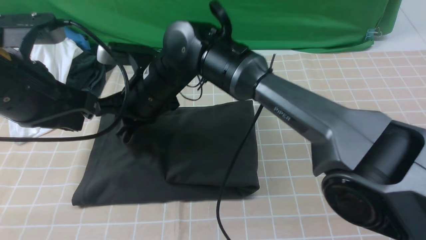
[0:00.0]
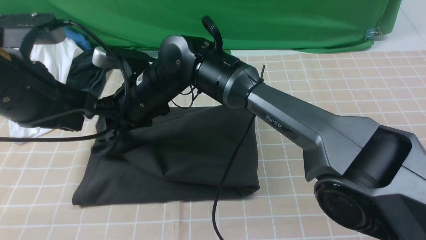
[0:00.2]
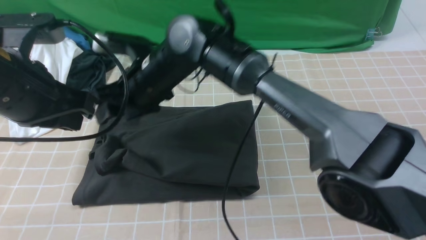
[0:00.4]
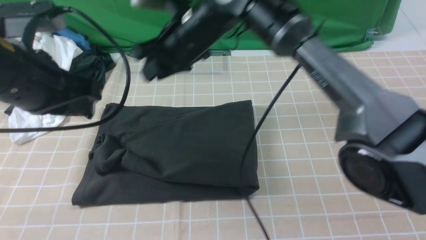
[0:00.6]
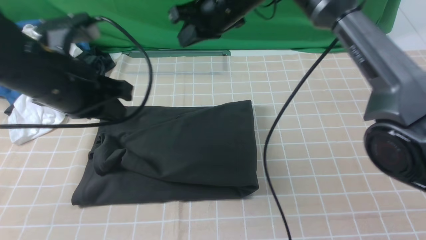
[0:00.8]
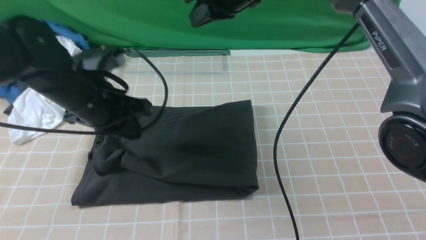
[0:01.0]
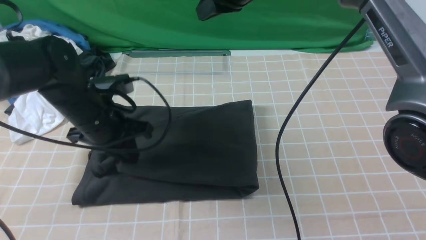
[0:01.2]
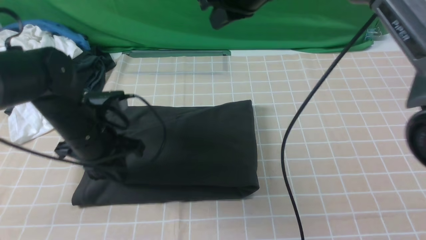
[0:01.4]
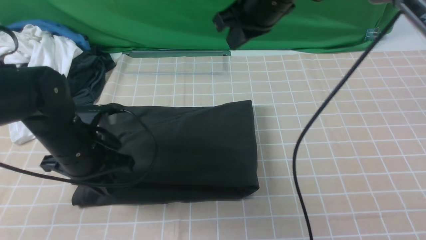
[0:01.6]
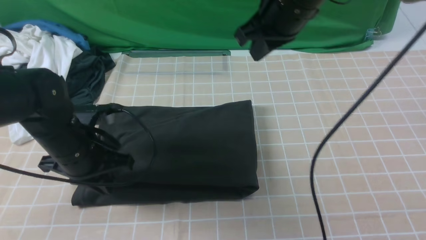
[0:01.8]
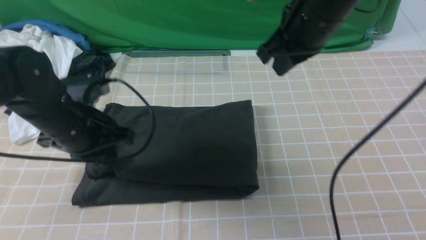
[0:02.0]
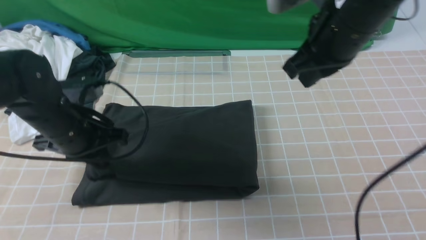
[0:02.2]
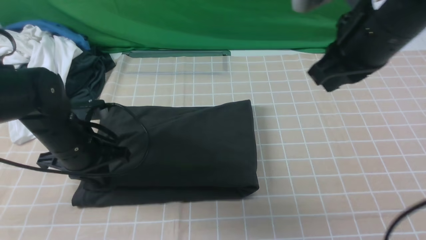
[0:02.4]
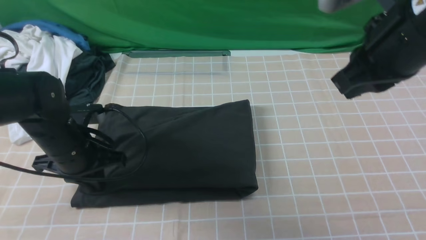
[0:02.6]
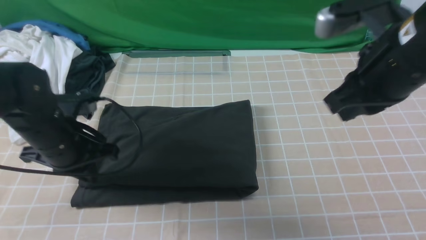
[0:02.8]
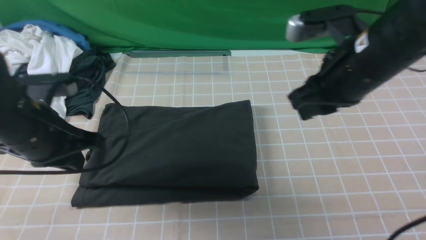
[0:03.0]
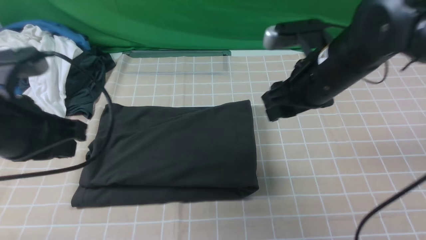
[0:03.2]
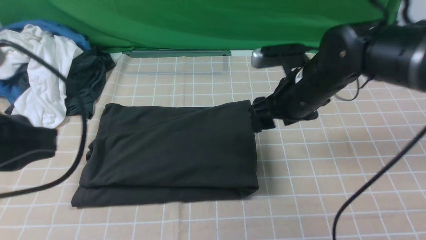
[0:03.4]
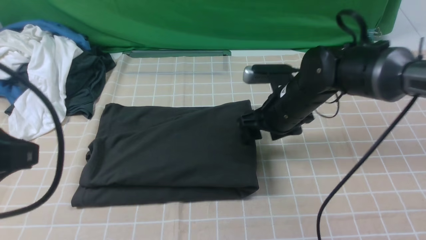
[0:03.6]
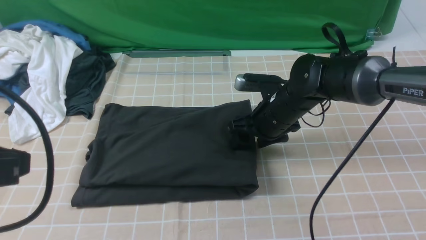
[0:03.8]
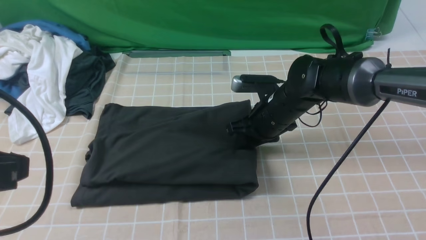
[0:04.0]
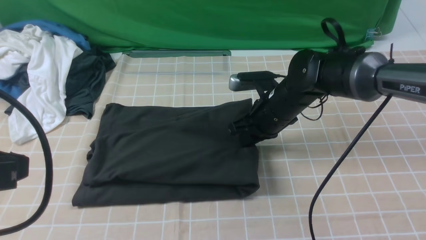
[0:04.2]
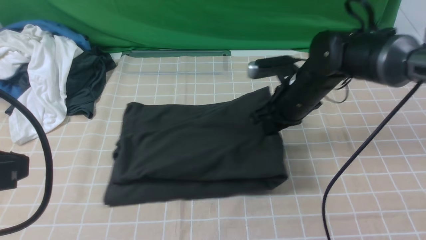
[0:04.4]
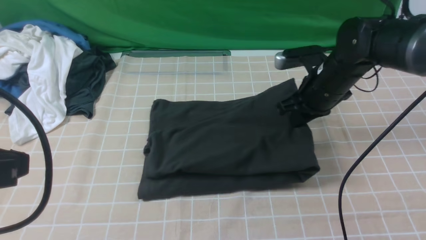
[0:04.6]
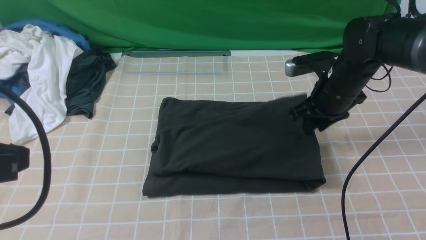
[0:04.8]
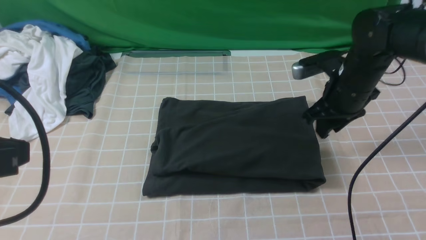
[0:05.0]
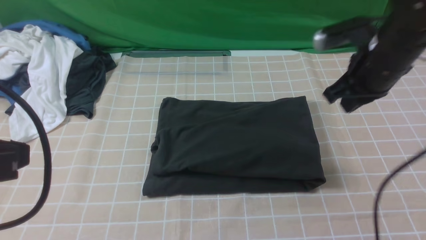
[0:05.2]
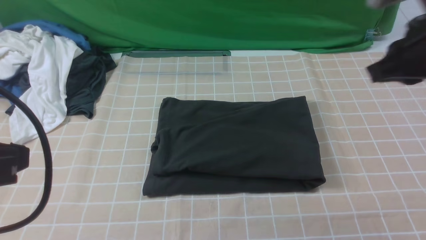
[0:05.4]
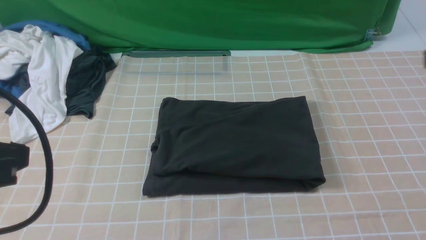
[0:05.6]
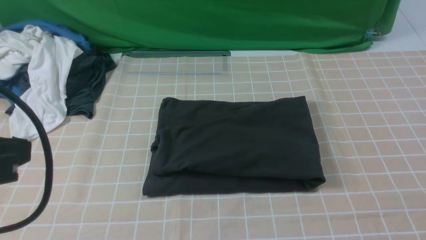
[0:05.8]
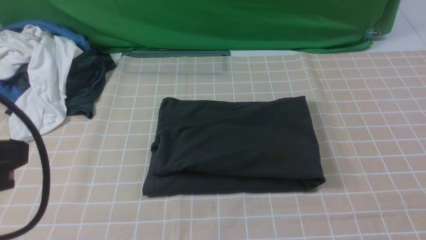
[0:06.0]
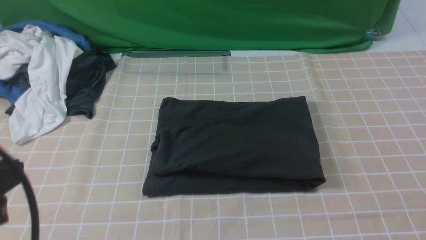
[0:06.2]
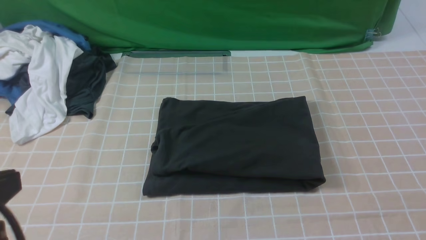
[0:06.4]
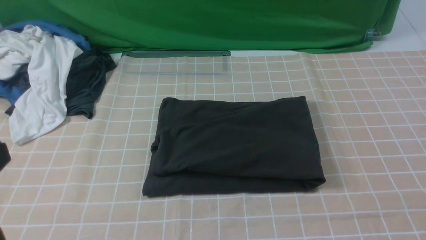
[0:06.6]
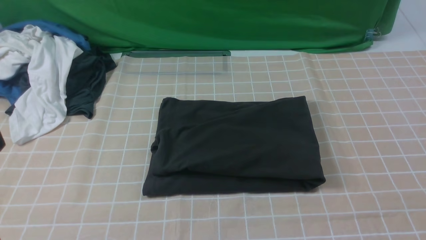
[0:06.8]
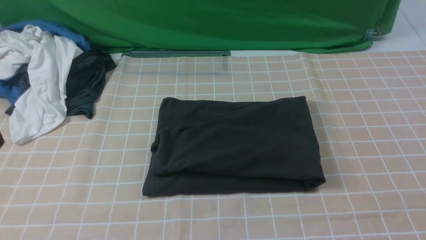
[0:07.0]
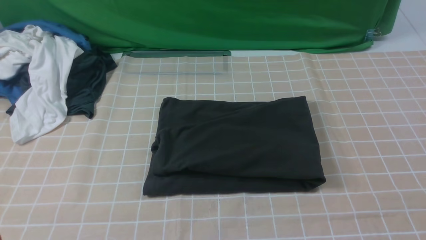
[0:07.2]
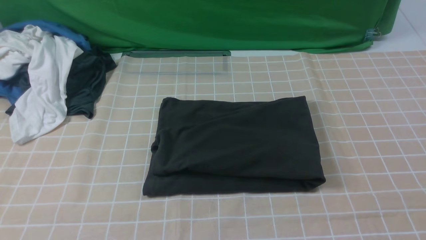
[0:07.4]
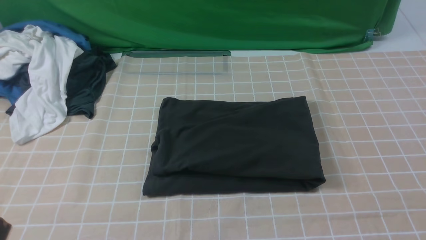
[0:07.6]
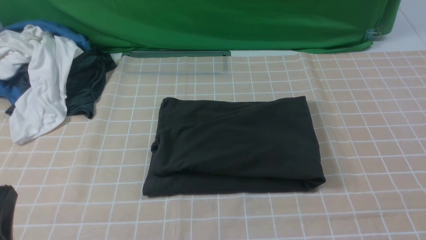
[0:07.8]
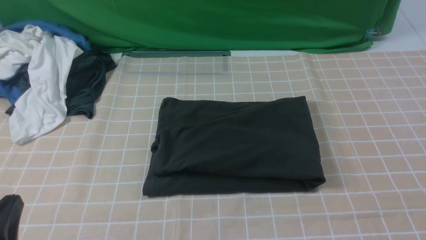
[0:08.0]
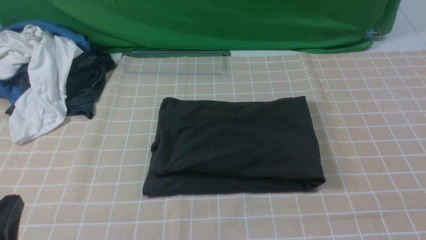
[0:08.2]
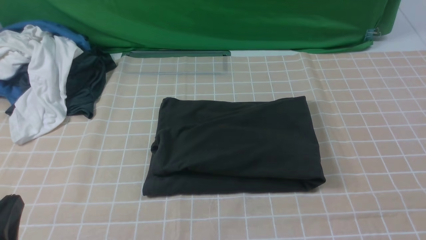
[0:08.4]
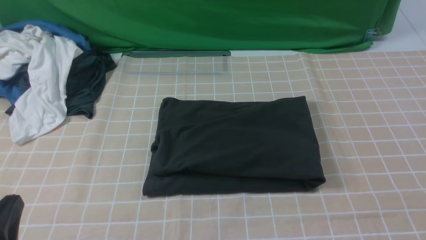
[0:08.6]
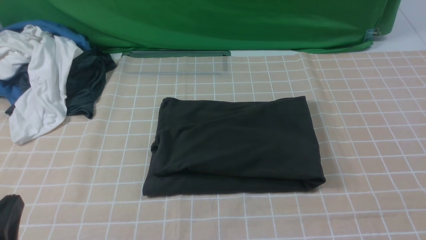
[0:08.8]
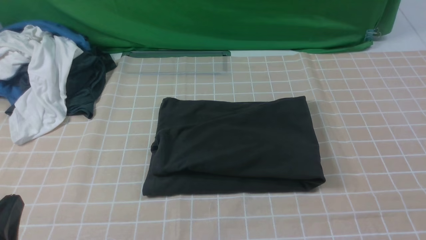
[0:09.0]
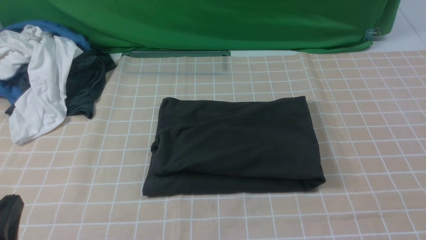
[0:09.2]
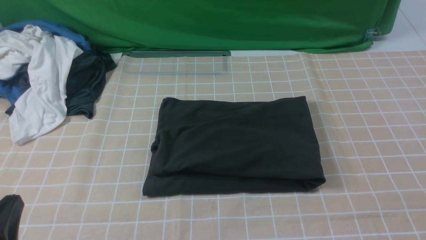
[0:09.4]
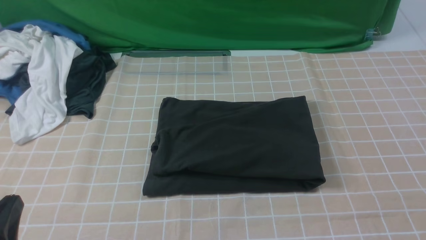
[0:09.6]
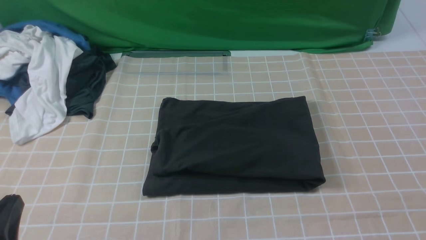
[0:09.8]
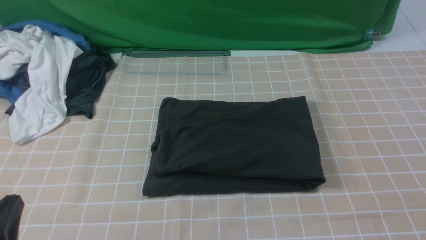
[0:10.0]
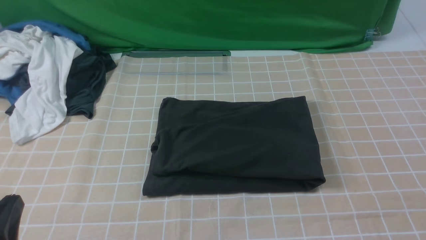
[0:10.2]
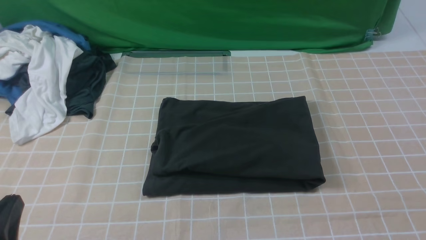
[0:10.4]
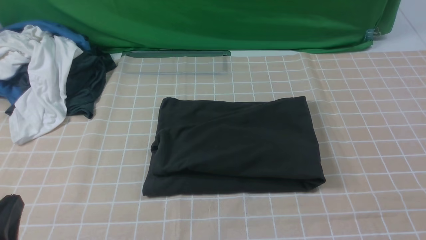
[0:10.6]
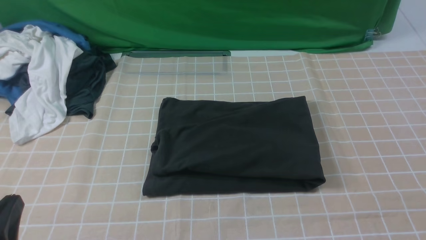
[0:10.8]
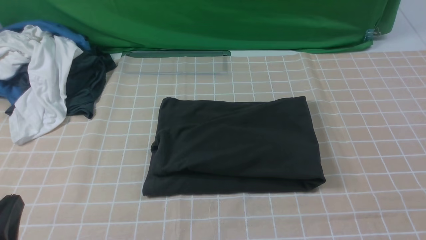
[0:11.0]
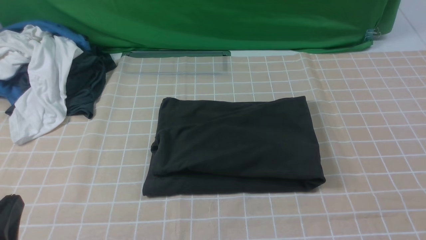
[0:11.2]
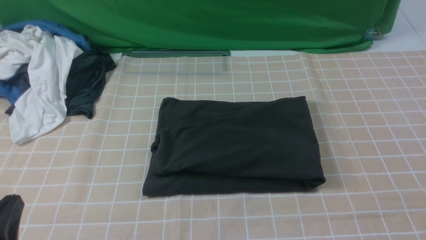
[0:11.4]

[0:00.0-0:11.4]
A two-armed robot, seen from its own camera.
0:00.0 to 0:01.4: The right gripper shifts about 20 cm to the right and upward. Meanwhile the left gripper moves downward and forward, some 15 cm.
0:01.4 to 0:02.8: The right gripper shifts some 20 cm backward and to the right.
0:02.8 to 0:04.2: The left gripper moves backward and upward, roughly 20 cm. Meanwhile the right gripper is displaced downward and forward by approximately 20 cm, and opens and closes again.
0:04.2 to 0:05.6: The right gripper shifts about 35 cm backward, upward and to the right.
0:05.6 to 0:07.2: The left gripper ends up about 5 cm from where it was.
0:07.2 to 0:08.6: The left gripper moves downward, about 15 cm.
0:10.0 to 0:11.4: Both grippers stay put.
